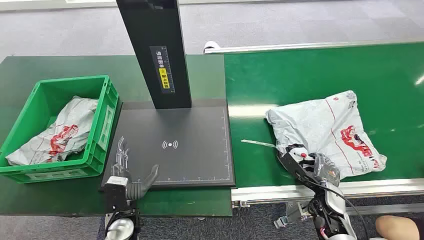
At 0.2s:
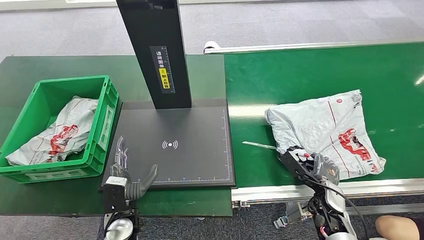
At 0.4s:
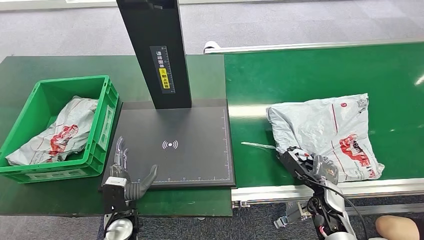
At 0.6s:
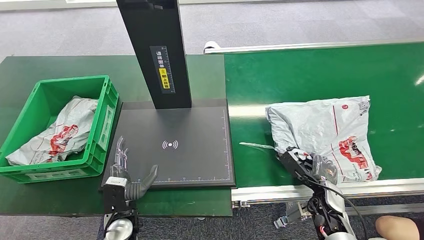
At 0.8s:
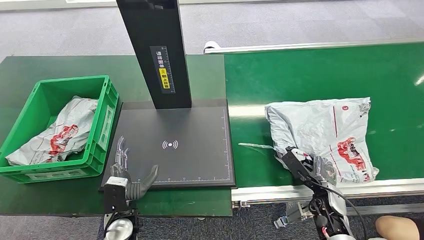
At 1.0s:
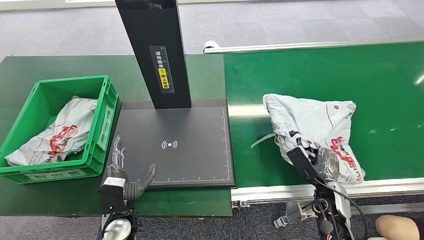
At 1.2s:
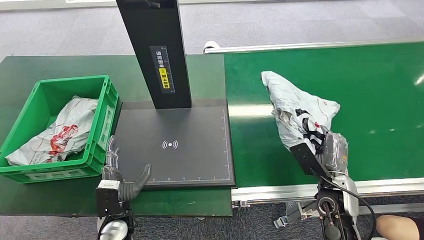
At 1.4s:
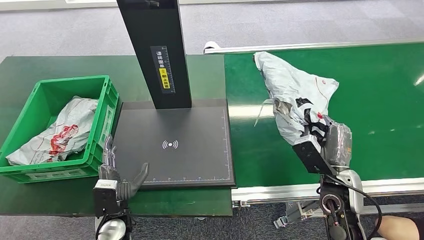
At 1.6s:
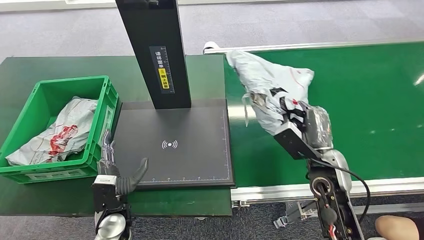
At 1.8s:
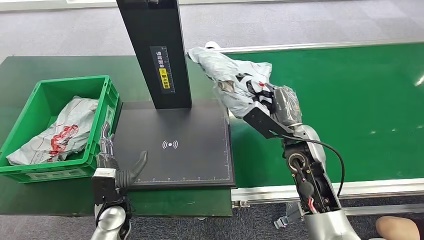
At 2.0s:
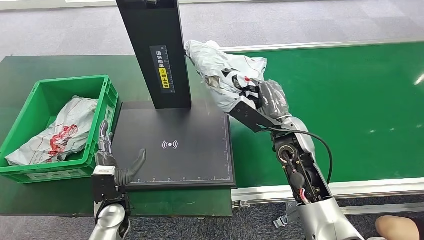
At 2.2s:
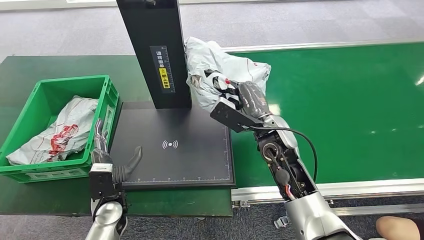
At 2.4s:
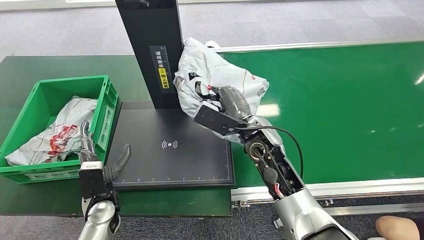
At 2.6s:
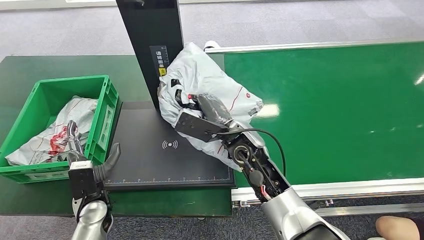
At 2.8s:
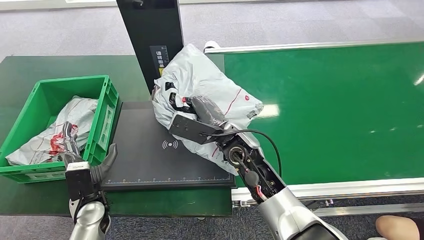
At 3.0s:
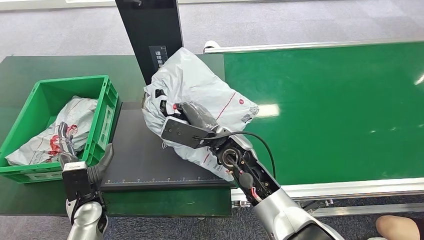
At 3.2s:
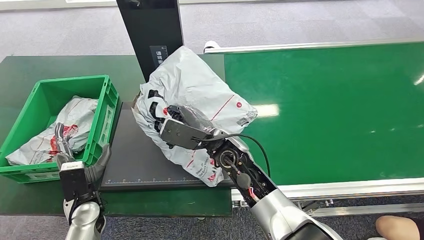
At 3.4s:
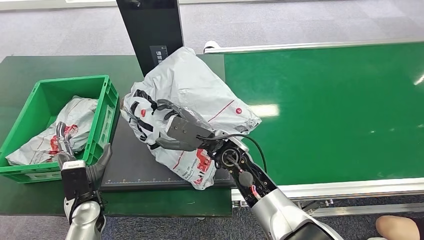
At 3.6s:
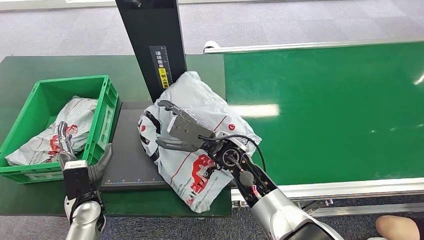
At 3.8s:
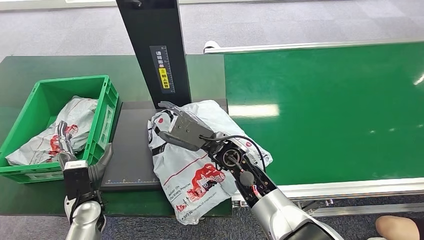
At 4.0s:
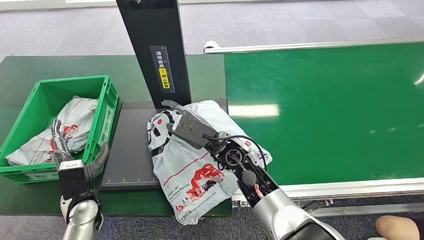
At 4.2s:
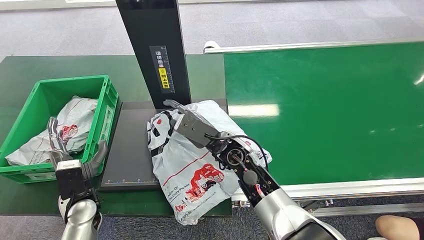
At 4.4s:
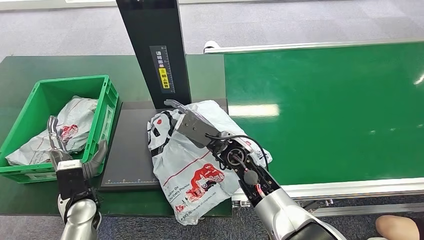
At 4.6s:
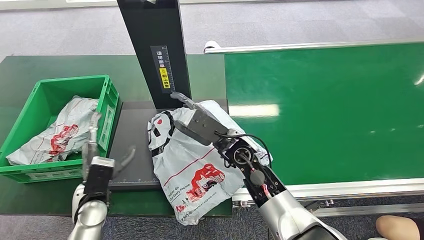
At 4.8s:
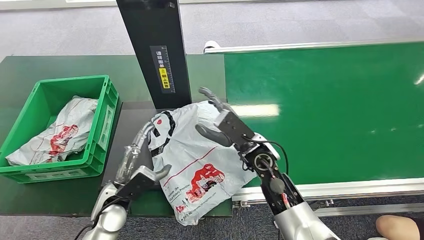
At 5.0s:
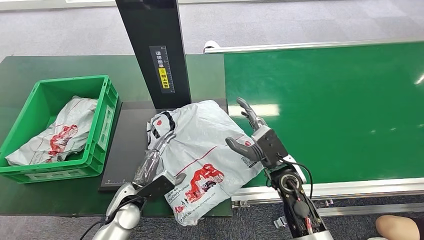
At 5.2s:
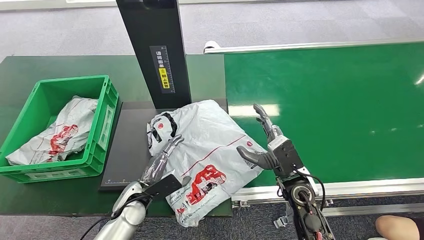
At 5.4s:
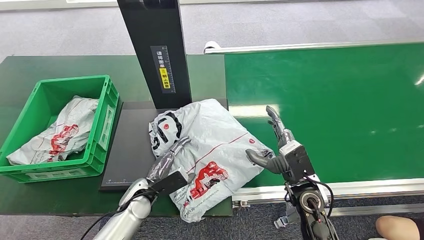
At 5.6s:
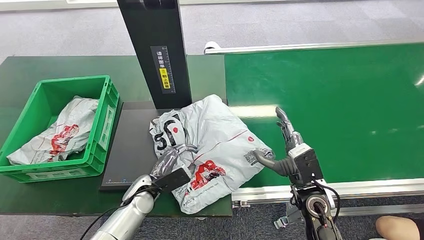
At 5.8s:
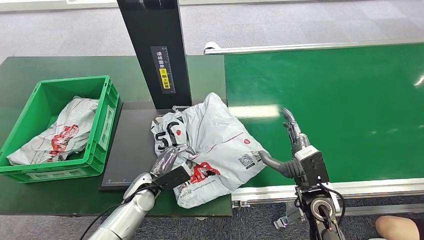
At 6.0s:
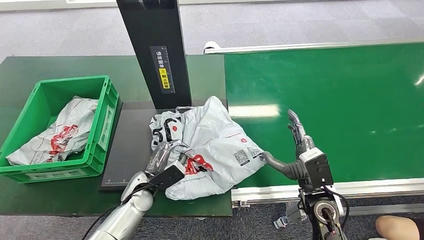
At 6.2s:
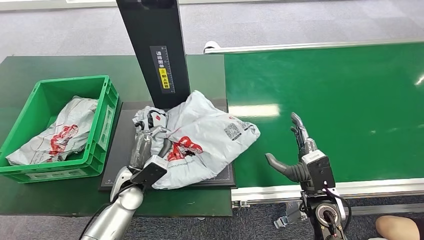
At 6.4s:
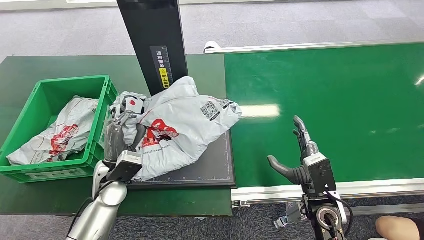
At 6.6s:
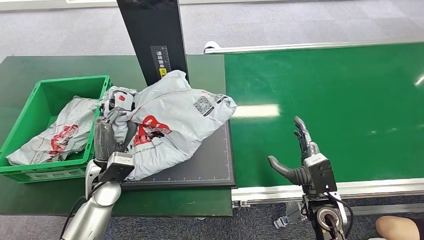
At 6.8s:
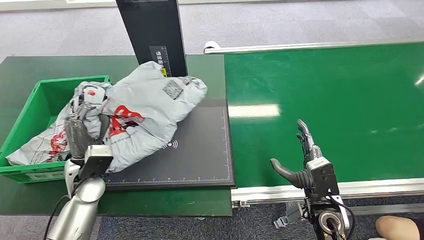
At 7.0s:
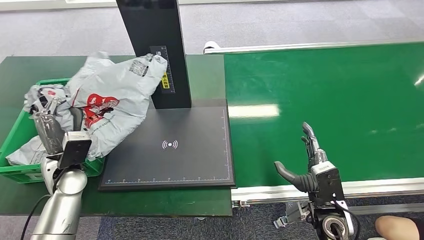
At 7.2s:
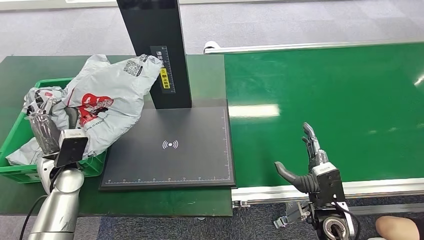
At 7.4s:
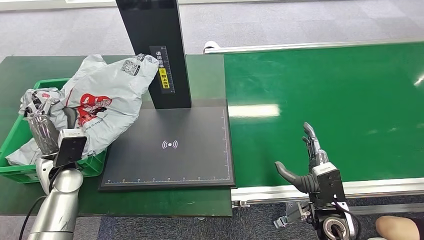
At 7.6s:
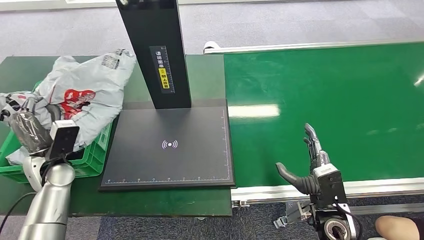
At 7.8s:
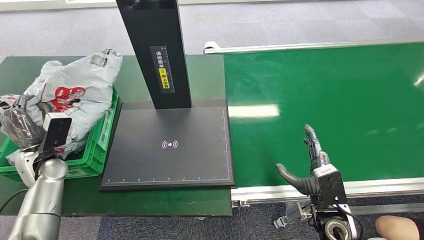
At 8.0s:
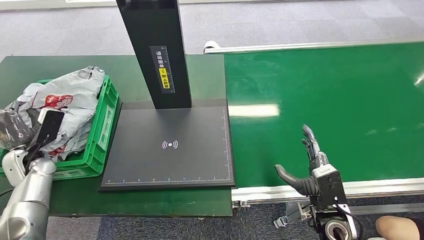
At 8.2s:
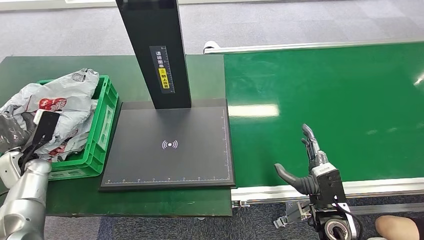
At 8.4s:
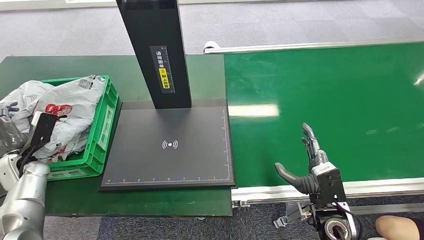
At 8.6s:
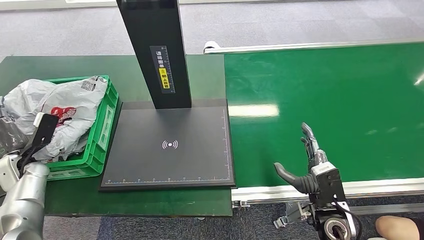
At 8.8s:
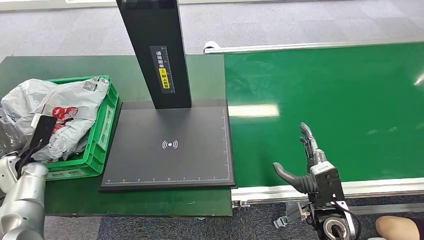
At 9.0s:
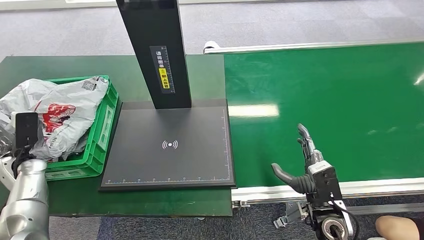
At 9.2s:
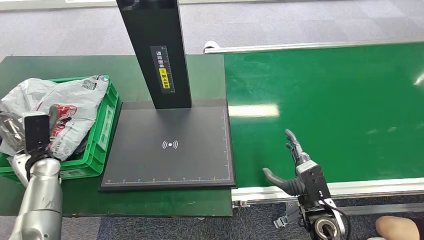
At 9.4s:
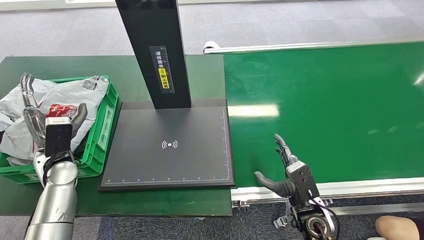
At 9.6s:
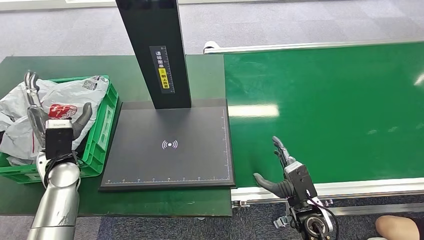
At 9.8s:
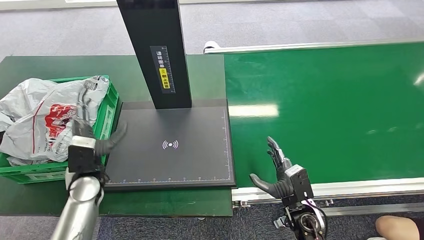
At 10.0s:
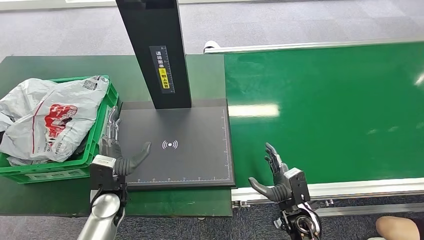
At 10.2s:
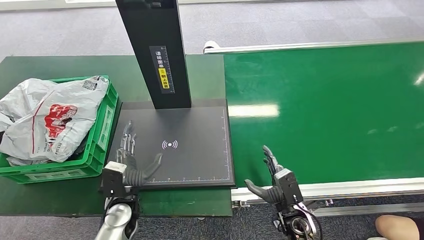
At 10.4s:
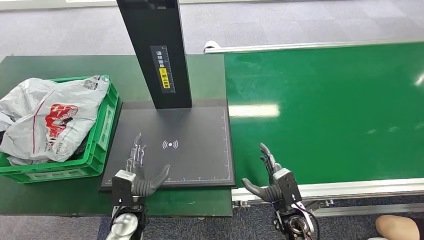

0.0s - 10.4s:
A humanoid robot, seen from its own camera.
Step, 0.0s - 2.0s: Pick up the package from the conveyor belt.
Step, 2.4s - 5.0s: Place the package onto the inbound machine.
Step, 5.2s - 6.8s: Pick up the package from the inbound machine.
Step, 7.0s - 10.4s: Place the package into the parcel locker.
3.0s - 4.4s: There are only small adjustments of the hands.
4.4s - 6.0s: The right hand is displaced to the right and backward by about 20 cm. The left hand moves to the right, about 10 cm.
7.4s - 9.0s: The left hand is displaced to the left by some 15 cm.
9.0s - 10.4s: The right hand is displaced downward by some 10 cm, while the left hand goes about 30 cm to the right.
